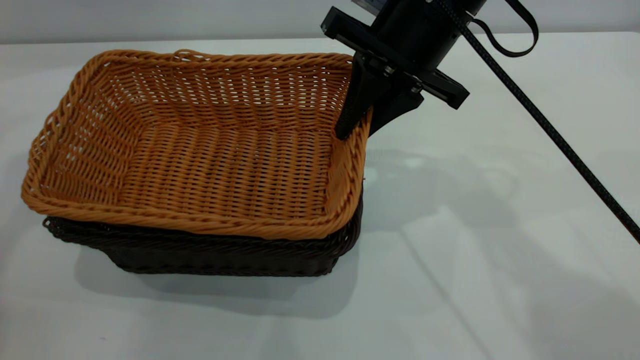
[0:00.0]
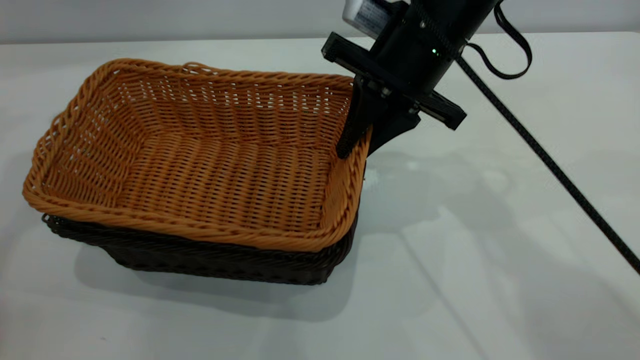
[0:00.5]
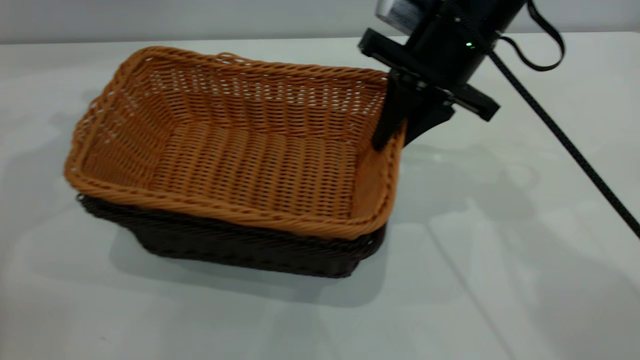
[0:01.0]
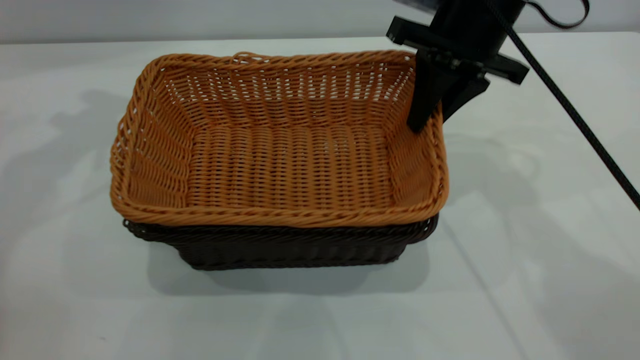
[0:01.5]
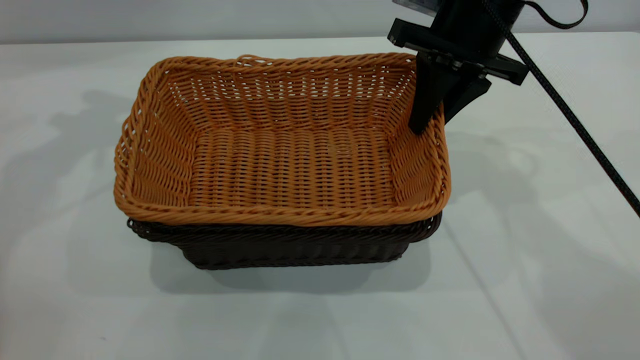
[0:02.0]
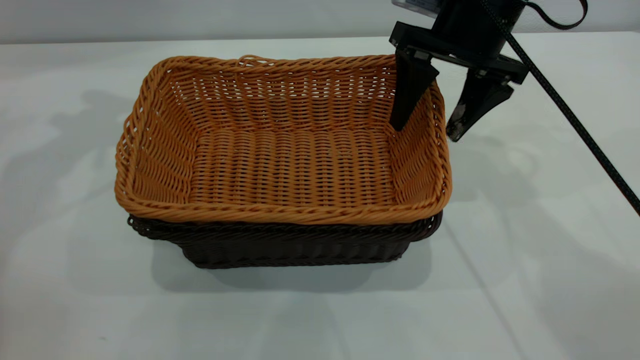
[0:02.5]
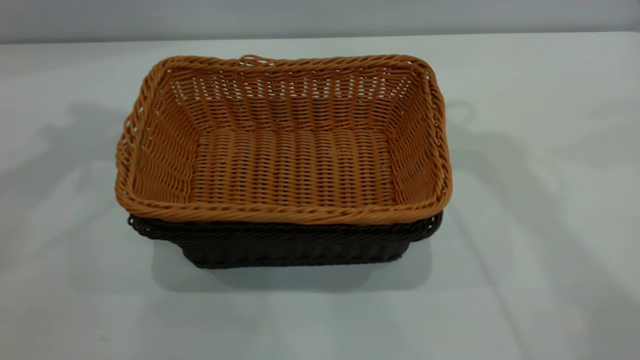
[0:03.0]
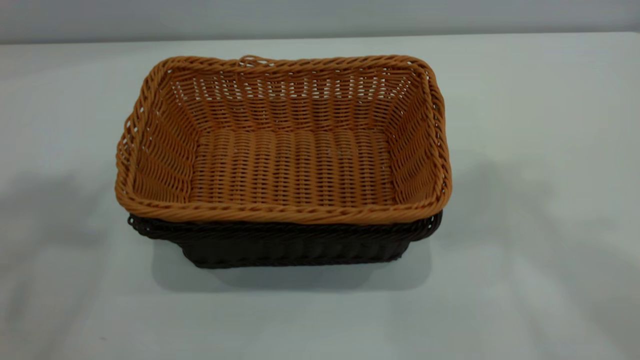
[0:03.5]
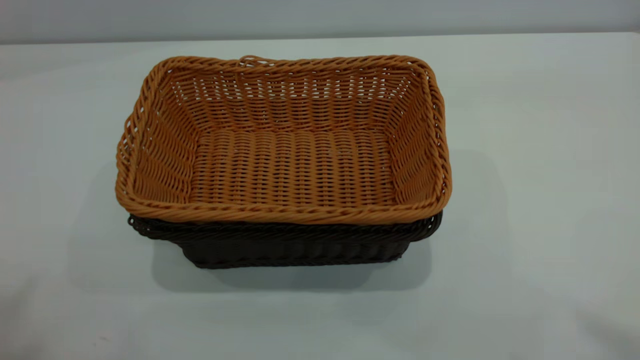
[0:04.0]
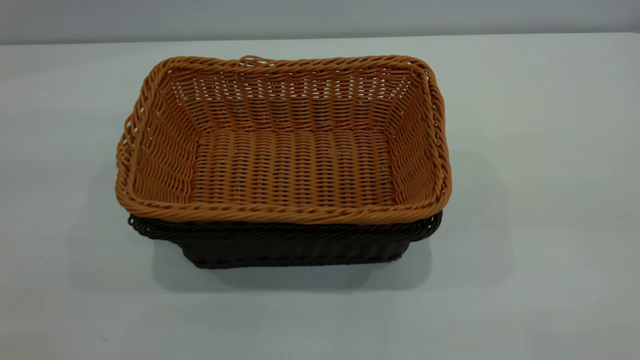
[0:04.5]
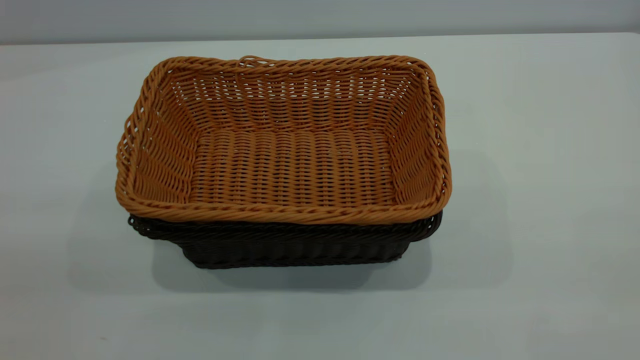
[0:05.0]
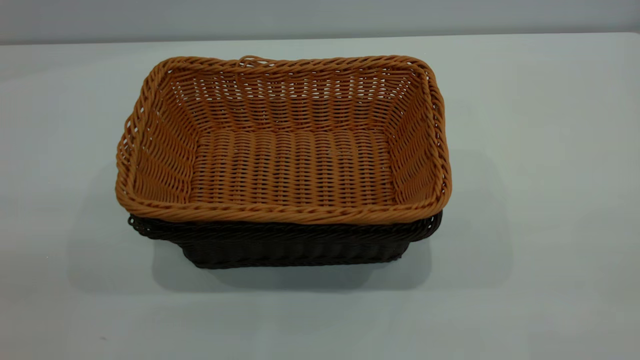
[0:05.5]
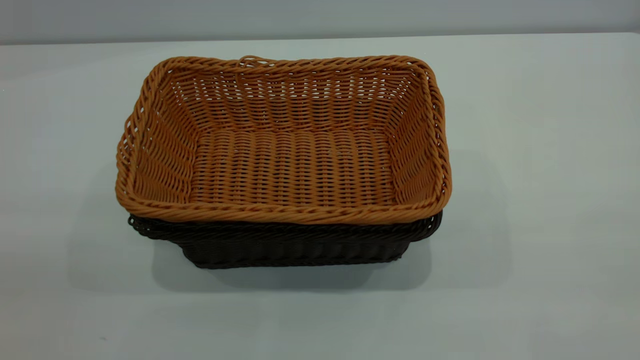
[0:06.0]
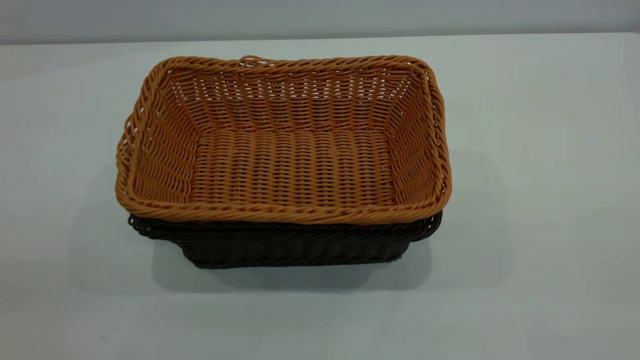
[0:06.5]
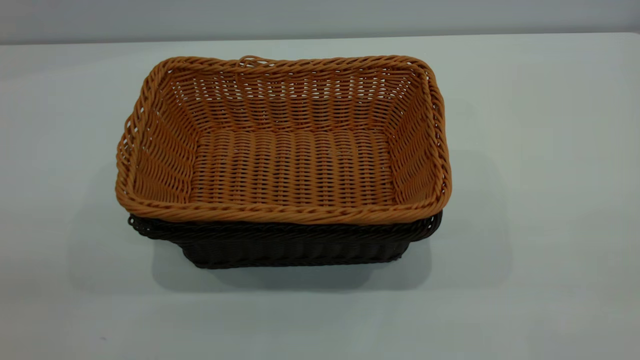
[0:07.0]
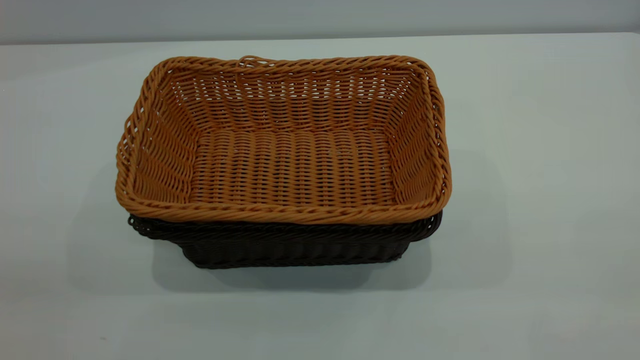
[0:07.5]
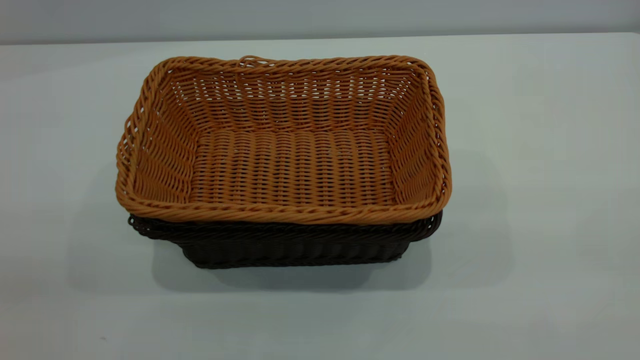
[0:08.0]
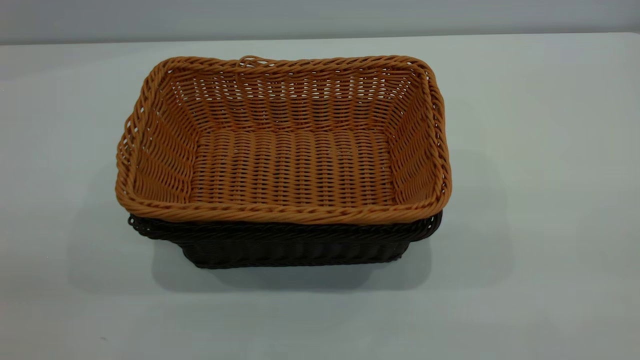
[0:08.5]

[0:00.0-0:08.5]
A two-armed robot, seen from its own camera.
Task of the whole recording: the left gripper grasp the black basket and place it in the center of the table, the right gripper grasp the brown basket and place it inside the black one.
Step, 0:00.0 to 0:02.5: Place the light basket on the dark basket.
0:00.0 to 0:02.0: The right gripper travels to the right by roughly 5 cm.
0:02.0 to 0:04.0: The right gripper heads upward and backward, covering some 50 cm, and opens up. Meanwhile the left gripper shifts some 40 cm backward and upward.
